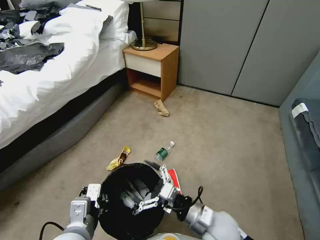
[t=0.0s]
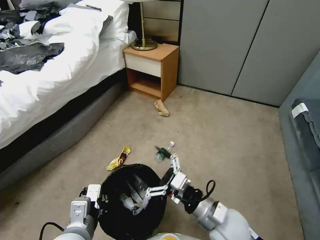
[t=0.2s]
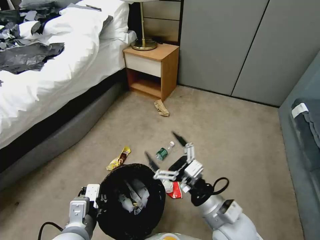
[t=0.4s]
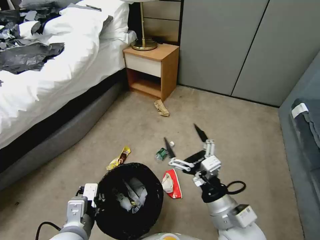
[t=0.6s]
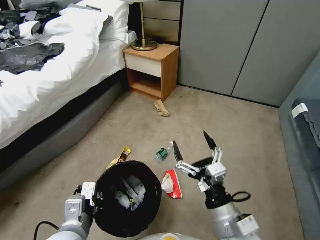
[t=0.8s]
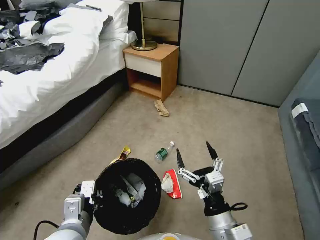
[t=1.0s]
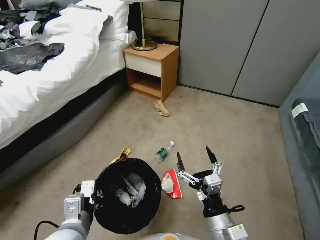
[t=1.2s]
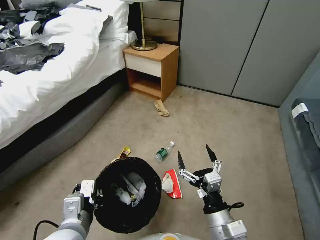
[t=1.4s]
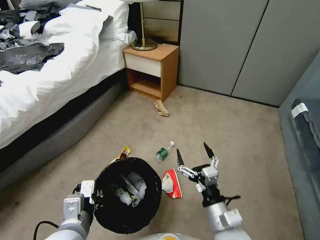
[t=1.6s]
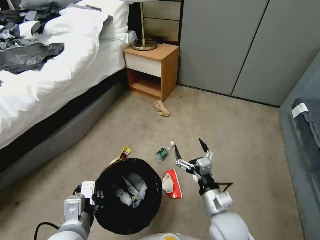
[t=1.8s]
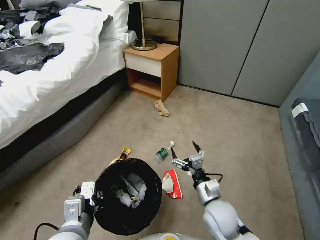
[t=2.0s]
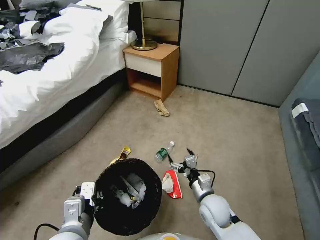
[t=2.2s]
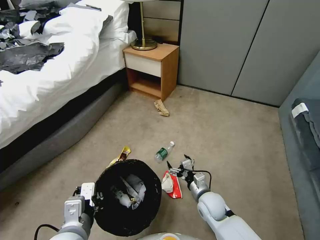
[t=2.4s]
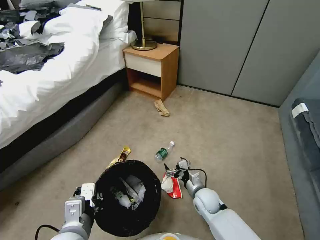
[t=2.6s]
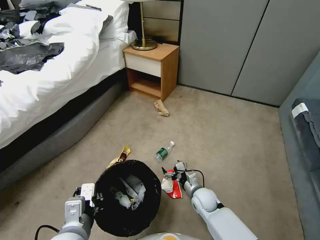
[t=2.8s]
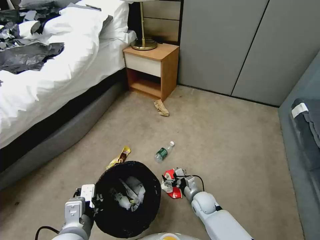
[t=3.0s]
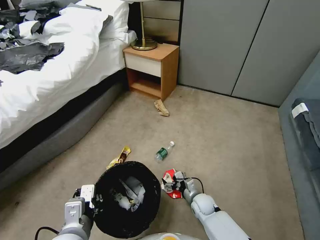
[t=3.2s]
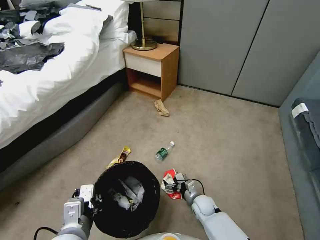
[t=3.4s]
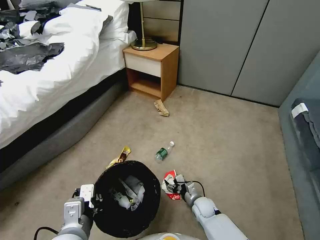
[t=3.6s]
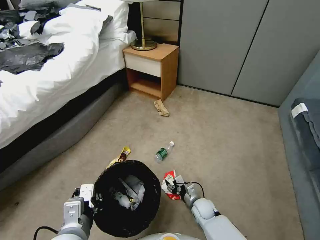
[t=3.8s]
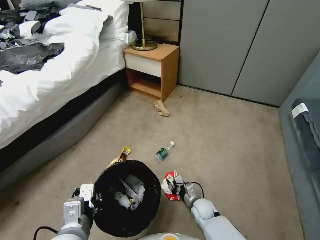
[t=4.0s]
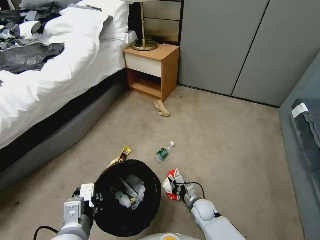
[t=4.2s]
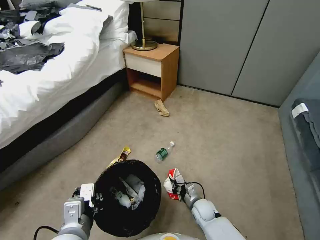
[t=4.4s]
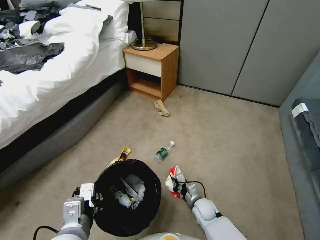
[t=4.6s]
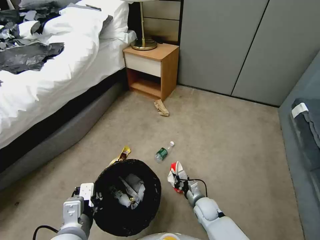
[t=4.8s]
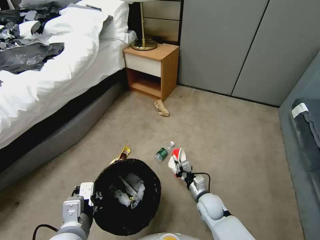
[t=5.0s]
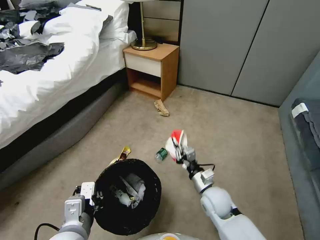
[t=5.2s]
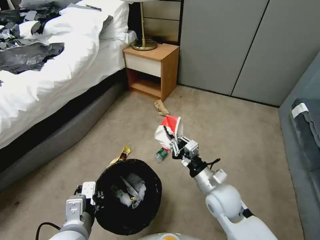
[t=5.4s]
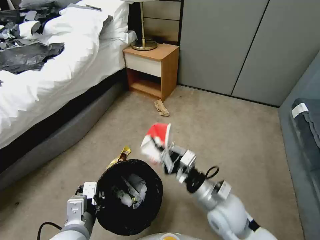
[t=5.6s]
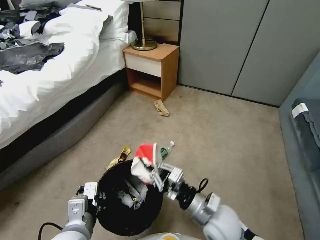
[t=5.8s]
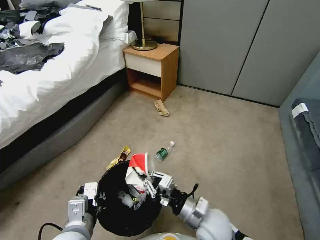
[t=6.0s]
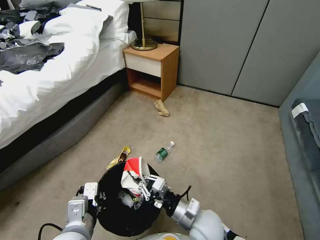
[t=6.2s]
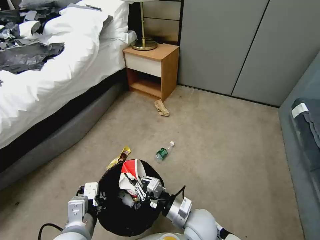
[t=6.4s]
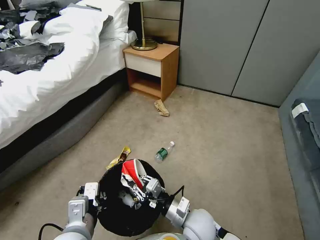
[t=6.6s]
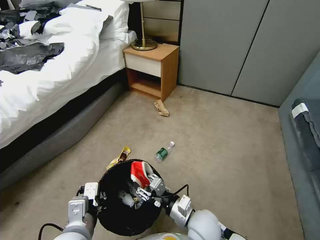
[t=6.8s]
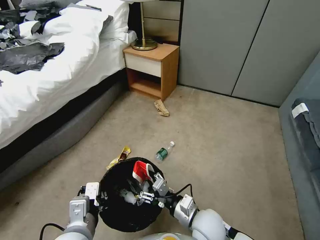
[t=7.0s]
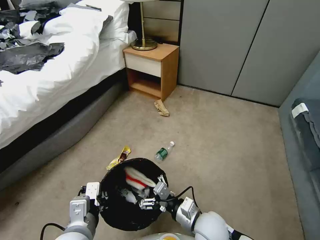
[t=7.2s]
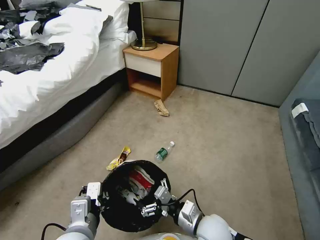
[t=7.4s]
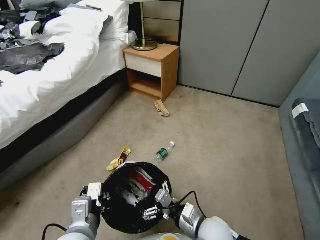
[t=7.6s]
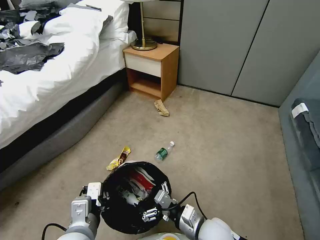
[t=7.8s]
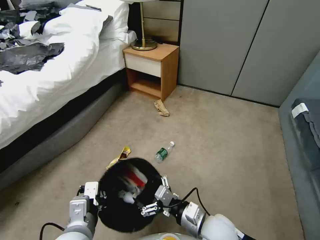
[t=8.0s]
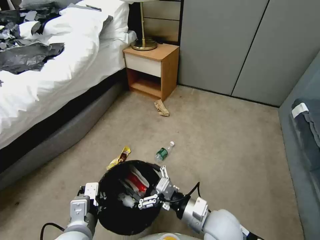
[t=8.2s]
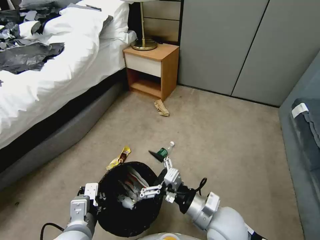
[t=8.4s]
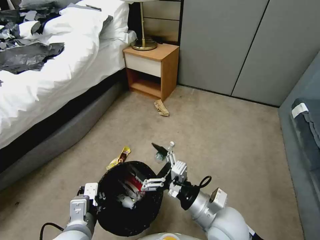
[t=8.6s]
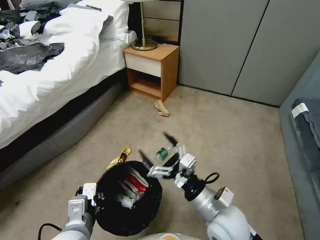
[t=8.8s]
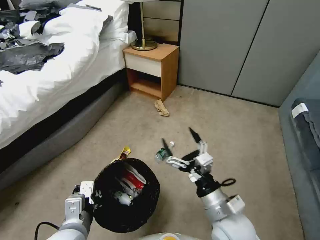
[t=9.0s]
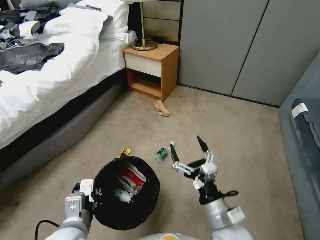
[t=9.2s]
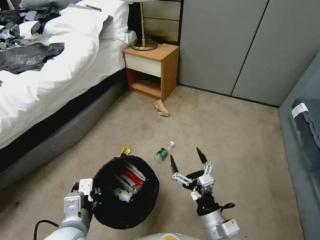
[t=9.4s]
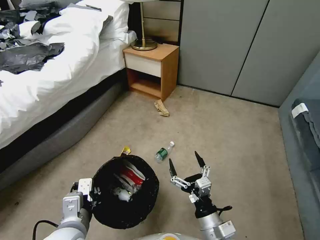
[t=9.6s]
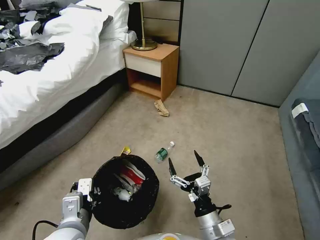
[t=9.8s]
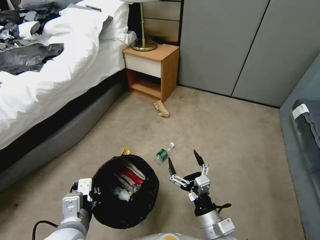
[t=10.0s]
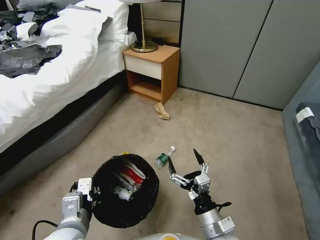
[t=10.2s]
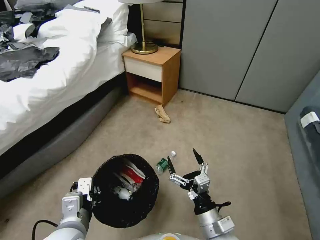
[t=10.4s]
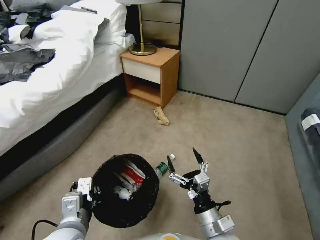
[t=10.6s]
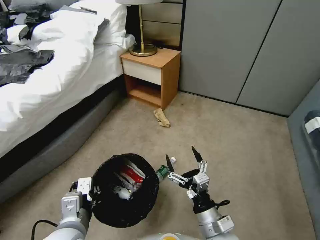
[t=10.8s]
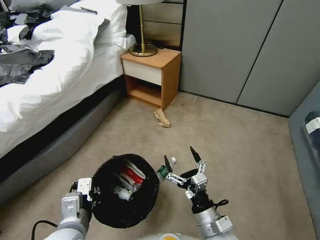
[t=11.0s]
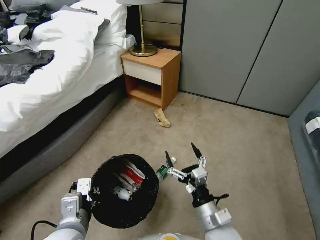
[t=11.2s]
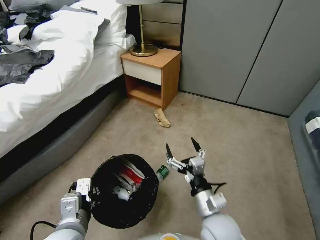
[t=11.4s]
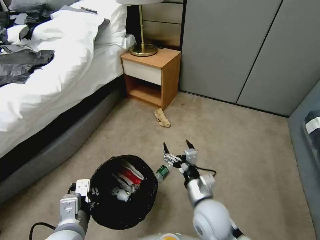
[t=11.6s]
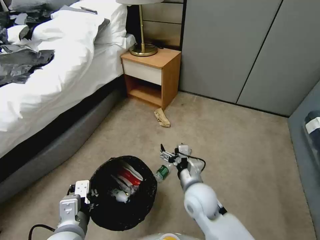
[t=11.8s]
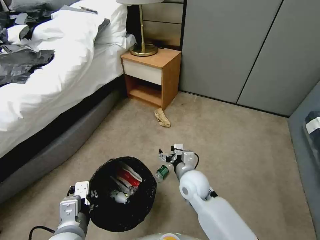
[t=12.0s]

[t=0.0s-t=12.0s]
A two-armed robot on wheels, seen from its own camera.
Task of the whole recording: Pick up the trash bin, then pick up the garbage from the floor and place it into the trash bin.
t=1.6s to t=3.0s: The right gripper travels downward and forward by some 25 cm.
t=3.0s to t=4.4s: The right gripper closes its fingers.
t=4.4s to t=6.0s: The right gripper goes approximately 20 cm upward.
t=6.0s to t=7.6s: The right gripper opens up.
t=7.6s to t=9.0s: The right gripper shifts about 10 cm upward.
t=9.0s to t=10.4s: The right gripper travels downward by about 10 cm.
t=10.4s to t=12.0s: The right gripper heads forward, covering some 15 cm.

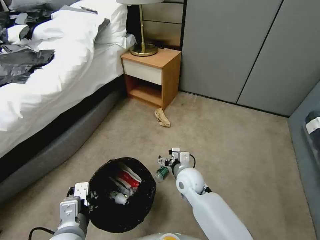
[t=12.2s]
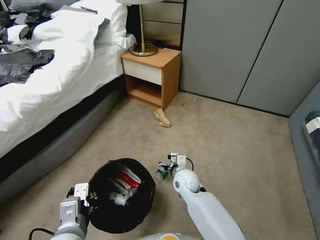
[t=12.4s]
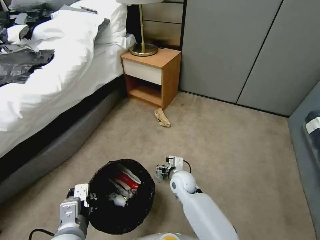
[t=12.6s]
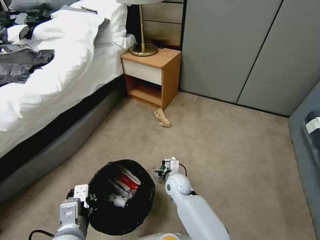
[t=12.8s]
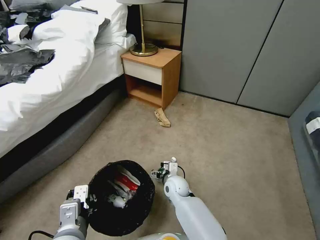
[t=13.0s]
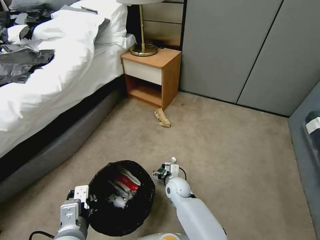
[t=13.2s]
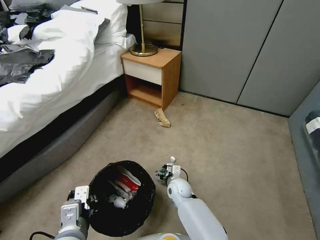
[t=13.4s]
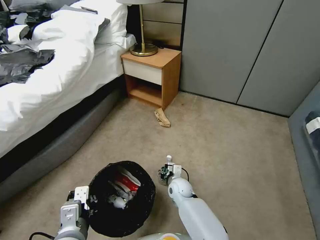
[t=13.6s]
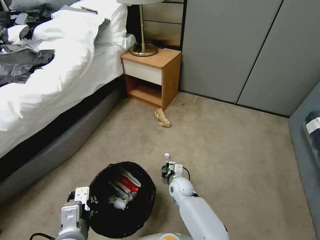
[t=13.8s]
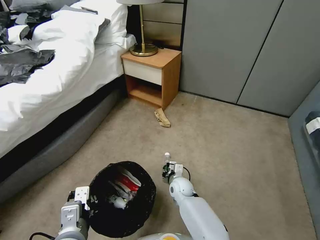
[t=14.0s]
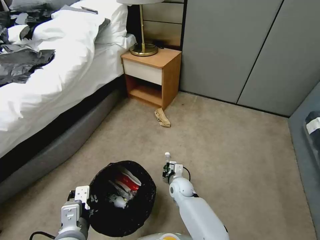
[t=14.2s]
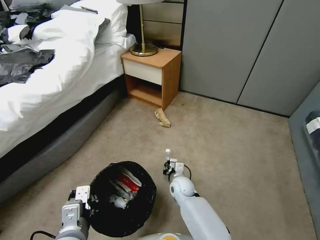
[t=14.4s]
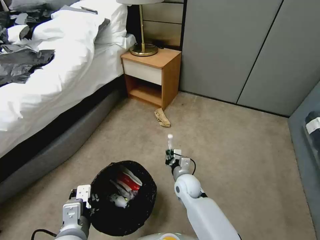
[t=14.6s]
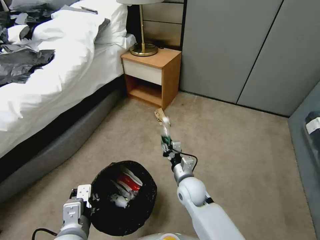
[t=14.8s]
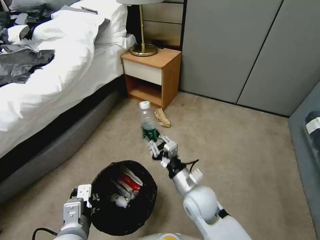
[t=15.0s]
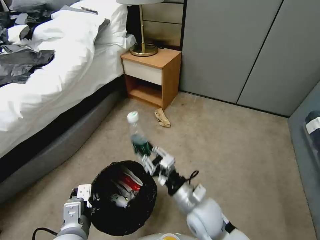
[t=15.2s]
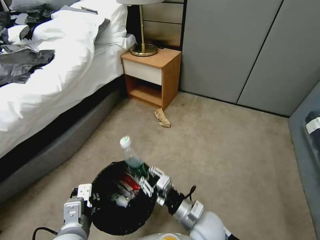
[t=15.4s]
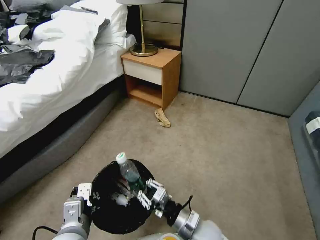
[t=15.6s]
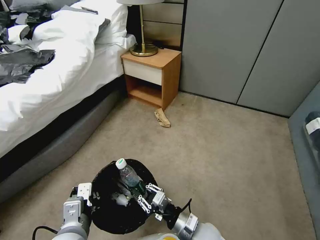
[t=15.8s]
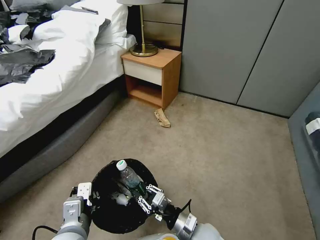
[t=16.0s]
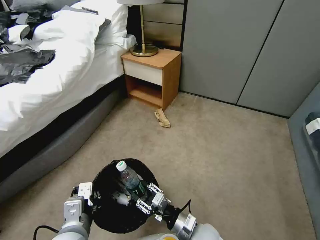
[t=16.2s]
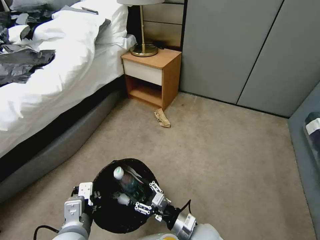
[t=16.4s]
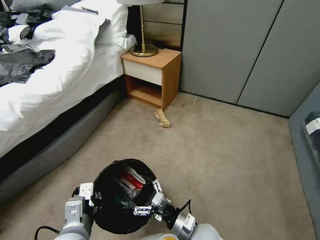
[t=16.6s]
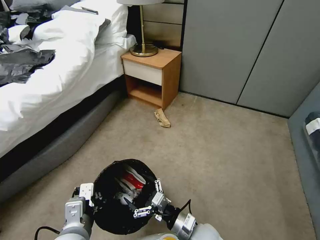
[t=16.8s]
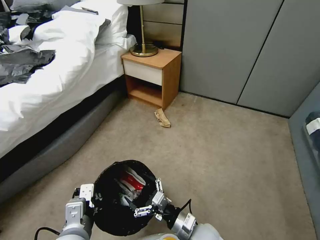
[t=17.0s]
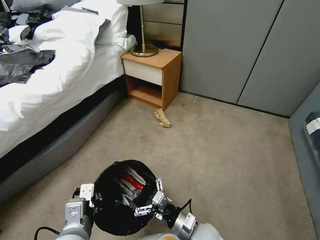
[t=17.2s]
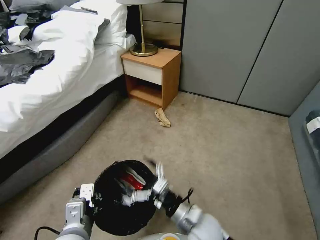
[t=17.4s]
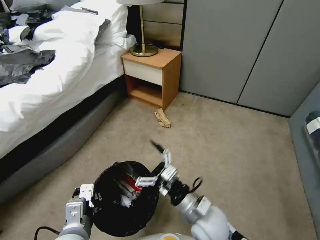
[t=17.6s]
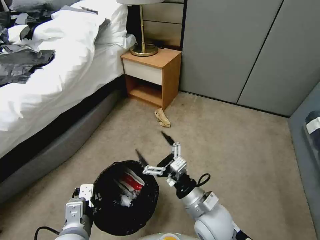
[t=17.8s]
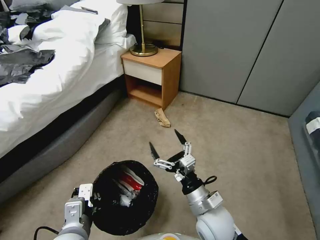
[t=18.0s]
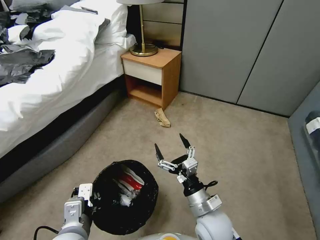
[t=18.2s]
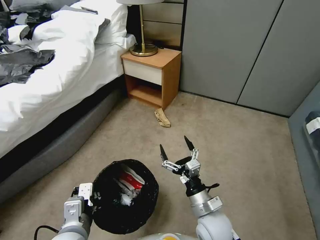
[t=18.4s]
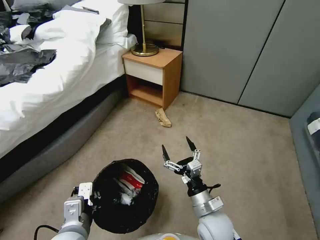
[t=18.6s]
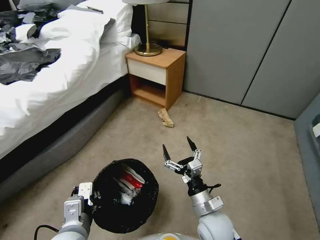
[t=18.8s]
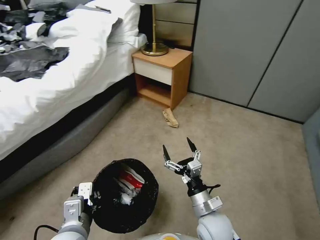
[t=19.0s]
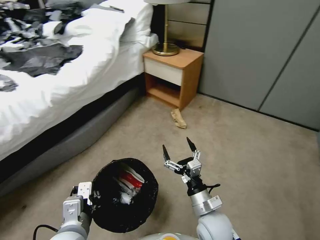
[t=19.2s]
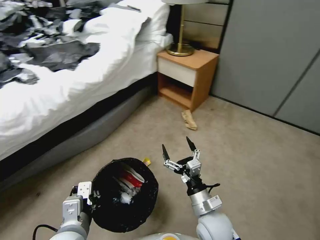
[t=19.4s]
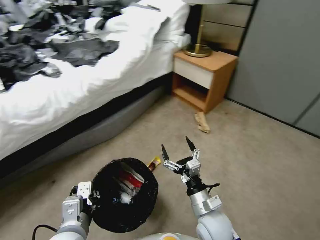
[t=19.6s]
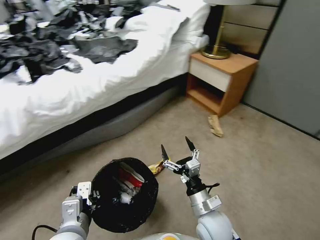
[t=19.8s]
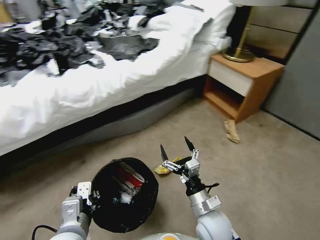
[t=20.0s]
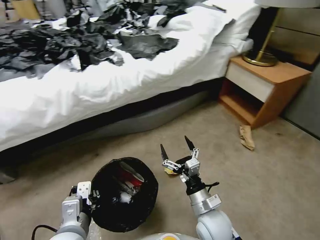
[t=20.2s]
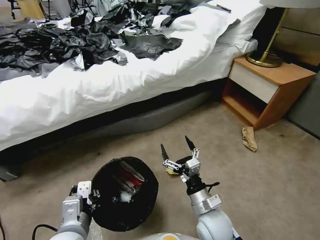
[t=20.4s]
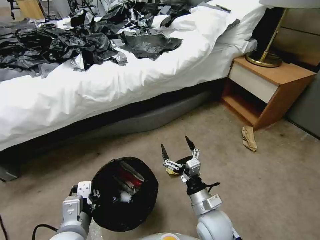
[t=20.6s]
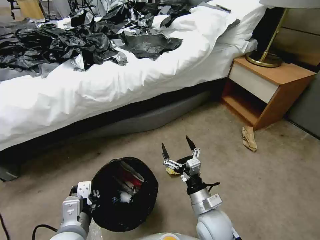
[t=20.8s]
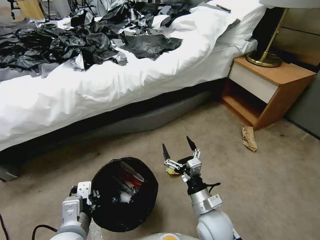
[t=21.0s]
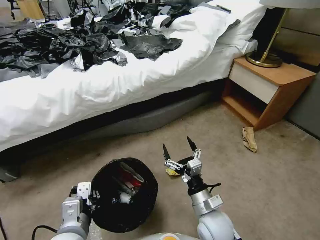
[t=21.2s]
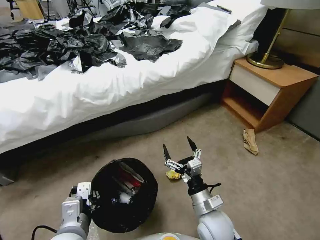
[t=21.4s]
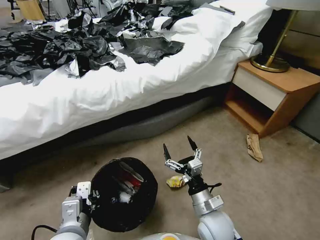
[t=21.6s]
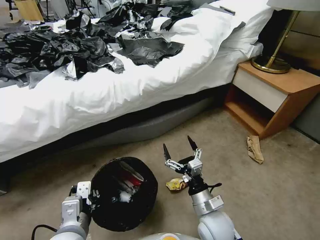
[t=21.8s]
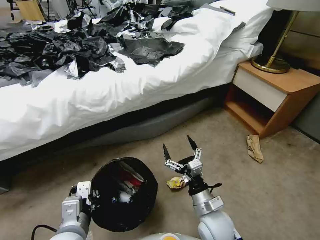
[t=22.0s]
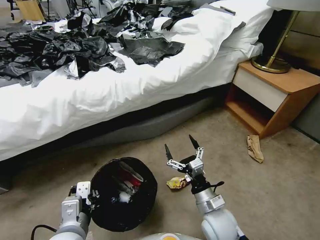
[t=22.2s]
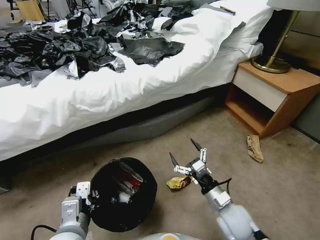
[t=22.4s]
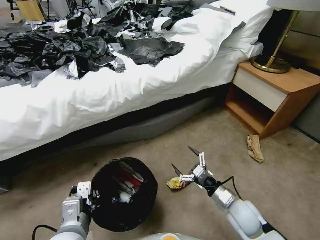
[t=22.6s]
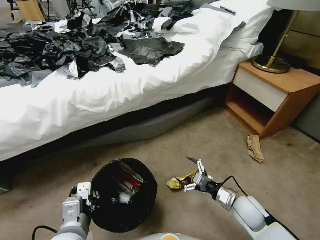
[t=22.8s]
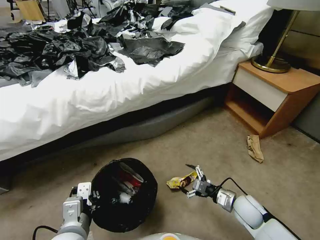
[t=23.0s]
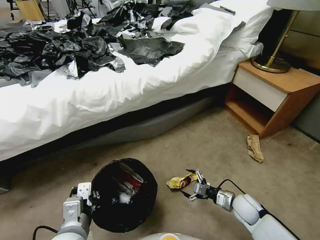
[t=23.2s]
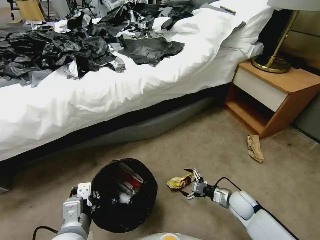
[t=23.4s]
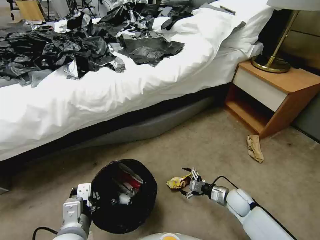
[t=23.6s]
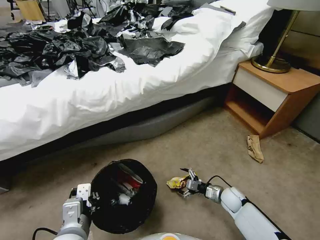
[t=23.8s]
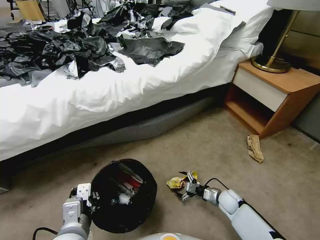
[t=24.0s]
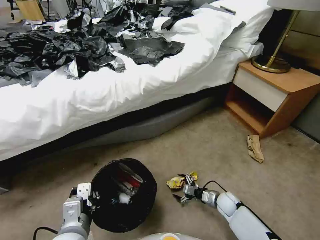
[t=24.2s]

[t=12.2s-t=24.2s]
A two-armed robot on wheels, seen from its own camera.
Task of the whole recording: Pick up the trash bin, then pick up the garbage from the floor and place it into the trash bin.
t=12.2s to t=13.8s: The right gripper travels downward by roughly 15 cm, and closes.
t=13.8s to t=15.2s: The right gripper heads upward and backward, covering roughly 20 cm.
t=15.2s to t=16.6s: The right gripper travels downward by approximately 10 cm, and opens.
t=16.6s to t=18.2s: The right gripper goes roughly 5 cm upward.
t=21.2s to t=22.6s: The right gripper shifts about 10 cm to the right.
t=22.6s to t=24.2s: The right gripper shifts roughly 20 cm downward and forward.
